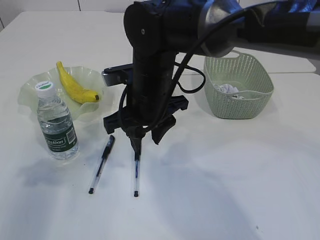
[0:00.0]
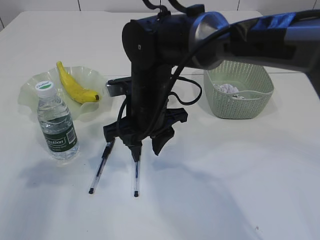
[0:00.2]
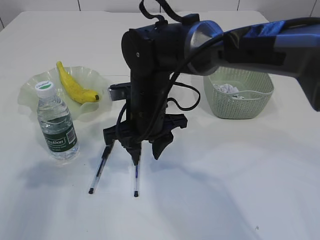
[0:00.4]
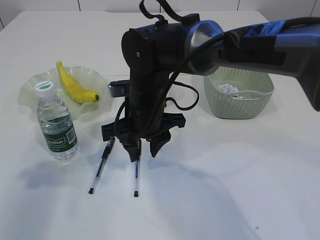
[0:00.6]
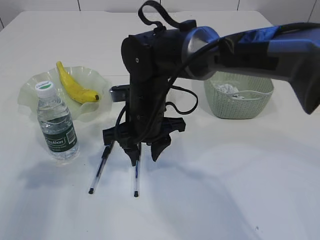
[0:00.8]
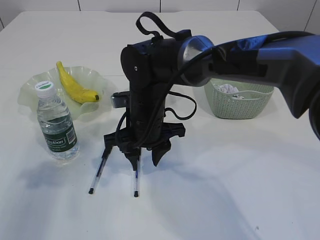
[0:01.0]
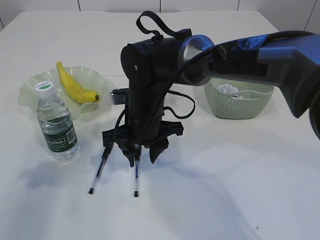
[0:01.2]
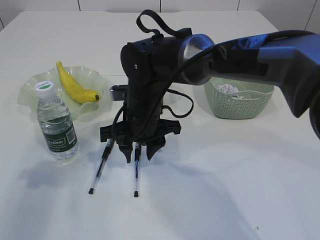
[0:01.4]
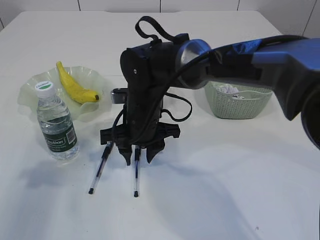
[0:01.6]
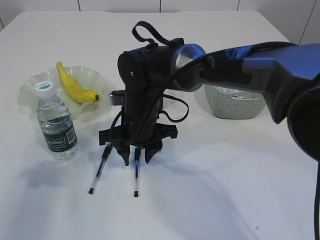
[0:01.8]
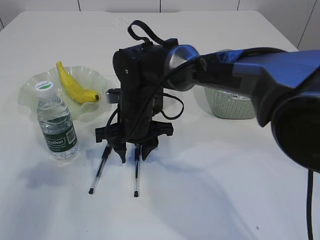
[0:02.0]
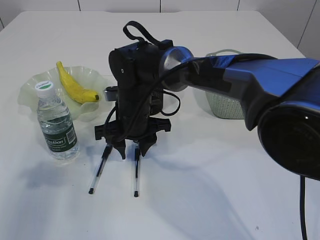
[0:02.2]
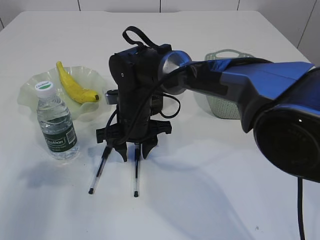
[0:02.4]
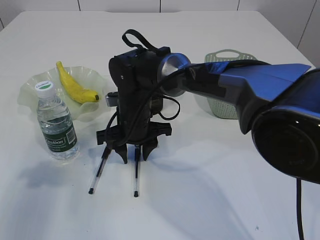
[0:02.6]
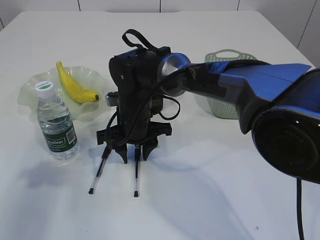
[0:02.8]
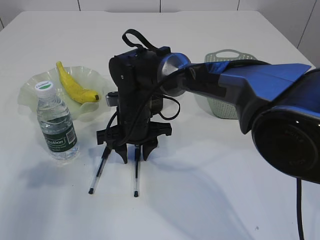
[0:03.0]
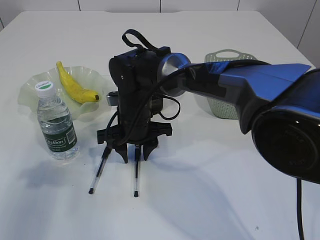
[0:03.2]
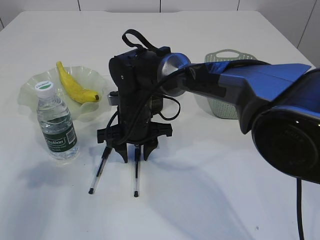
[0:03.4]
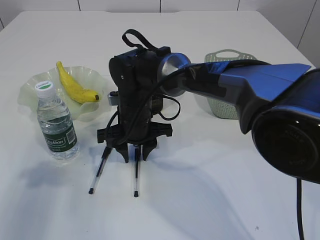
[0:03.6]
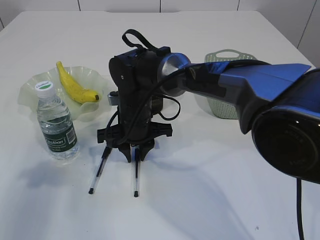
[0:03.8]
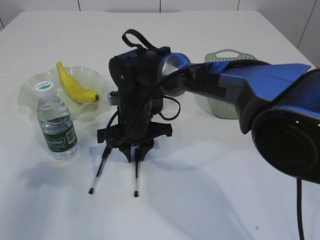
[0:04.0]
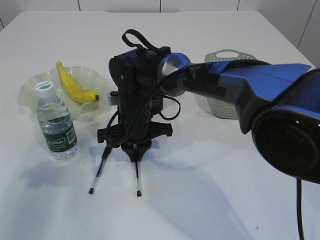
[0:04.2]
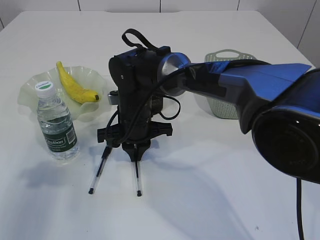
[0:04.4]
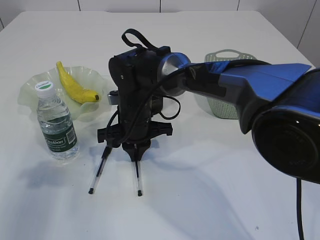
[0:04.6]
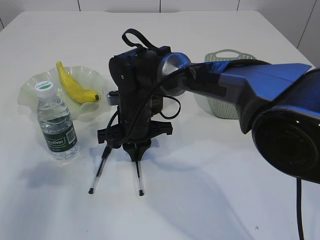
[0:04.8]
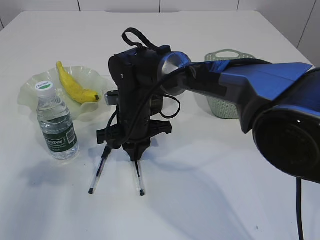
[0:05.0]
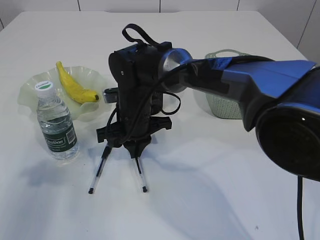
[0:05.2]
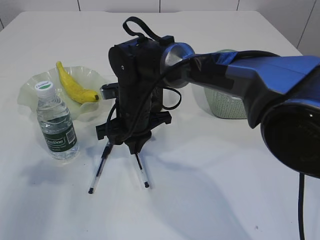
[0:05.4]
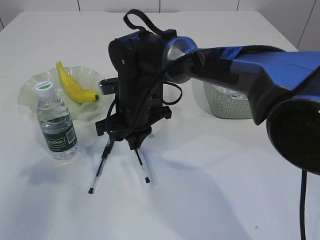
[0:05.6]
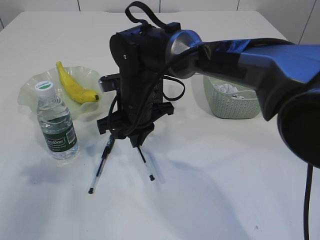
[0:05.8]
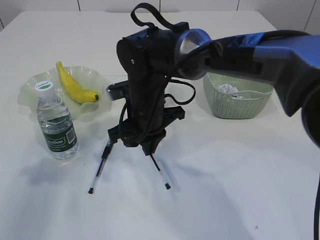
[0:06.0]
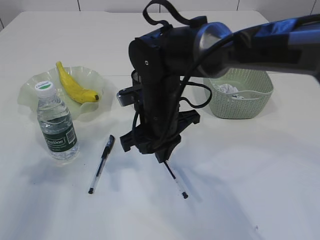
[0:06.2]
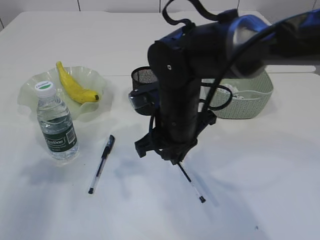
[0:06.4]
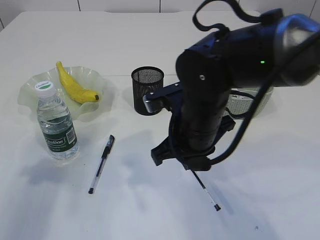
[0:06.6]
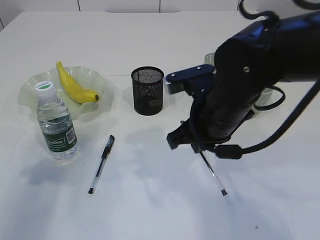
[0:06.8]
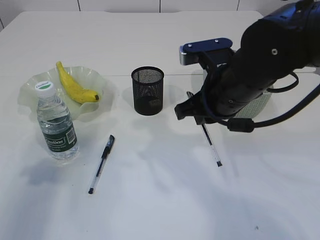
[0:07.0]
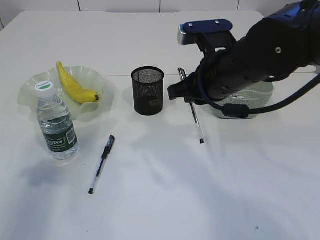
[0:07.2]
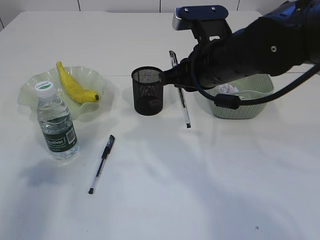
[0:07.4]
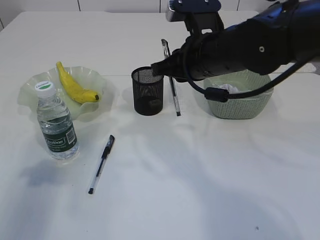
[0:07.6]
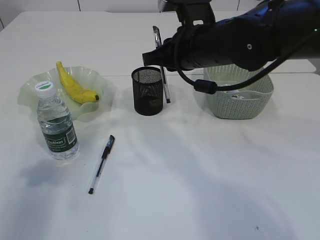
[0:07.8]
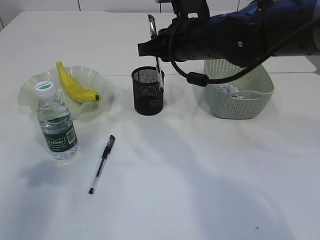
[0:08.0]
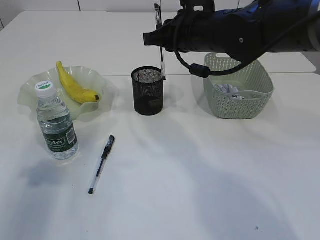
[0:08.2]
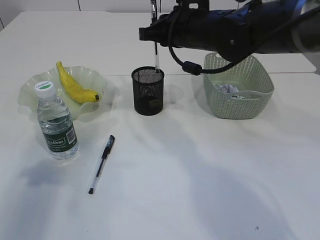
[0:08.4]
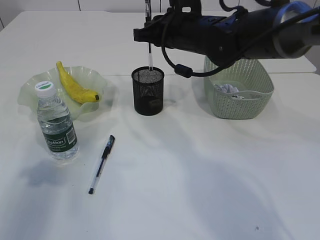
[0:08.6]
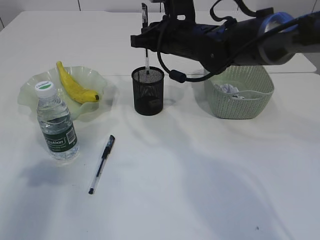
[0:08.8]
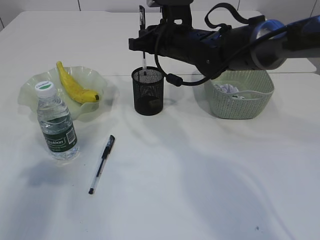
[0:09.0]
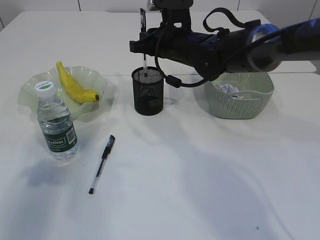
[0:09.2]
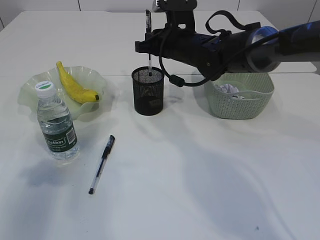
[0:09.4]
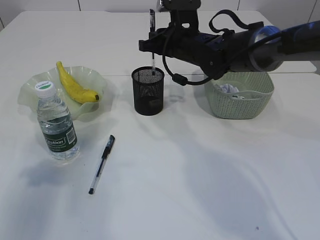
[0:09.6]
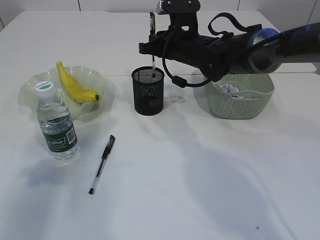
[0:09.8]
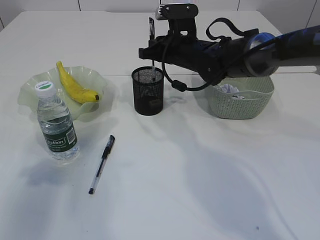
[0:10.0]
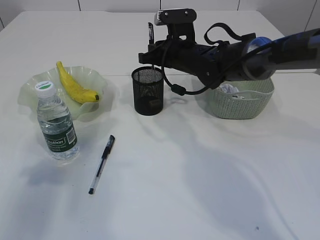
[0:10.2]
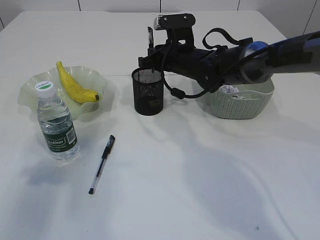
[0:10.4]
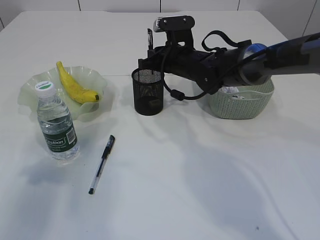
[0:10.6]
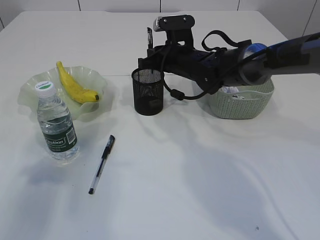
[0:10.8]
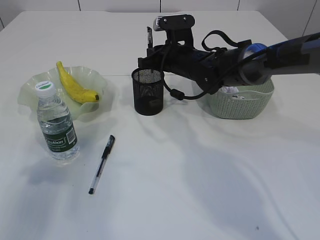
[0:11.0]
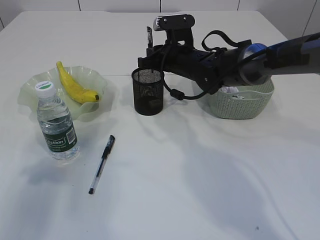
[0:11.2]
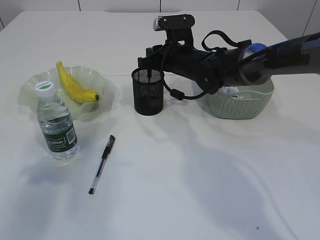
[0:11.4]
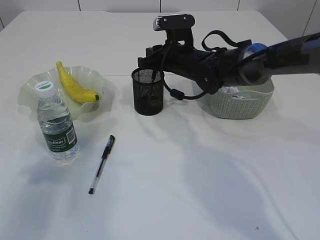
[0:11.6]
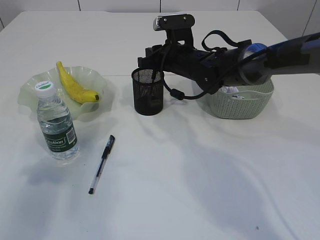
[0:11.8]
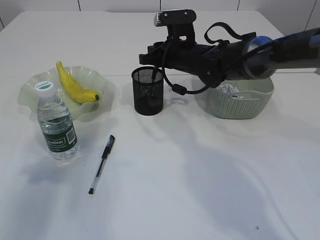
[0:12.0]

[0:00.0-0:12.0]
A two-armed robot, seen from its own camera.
Step, 0:00.0 to 0:06.0: Pick up the pen with right arm.
0:00.0 to 0:01.6: The right gripper goes some 5 cm downward.
0:03.0 to 0:04.4: The right gripper closes up.
0:06.0 to 0:07.6: The right gripper shifts approximately 15 cm to the right and upward.
0:07.6 to 0:09.0: The right gripper goes about 10 cm forward.
0:09.0 to 0:10.4: The right gripper changes place by approximately 5 cm.
0:10.4 to 0:12.0: Both grippers stay about where they are.

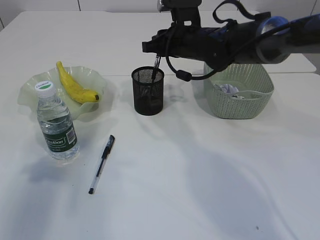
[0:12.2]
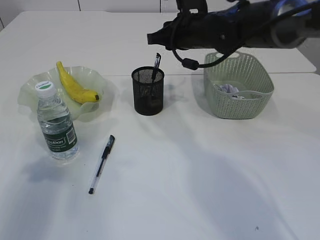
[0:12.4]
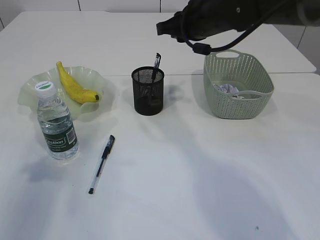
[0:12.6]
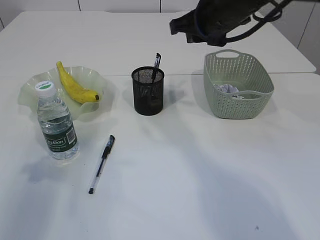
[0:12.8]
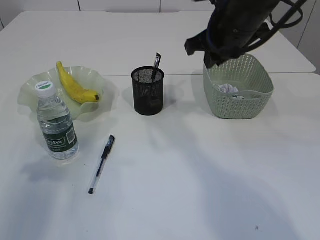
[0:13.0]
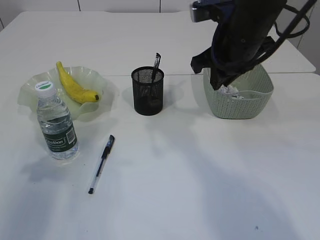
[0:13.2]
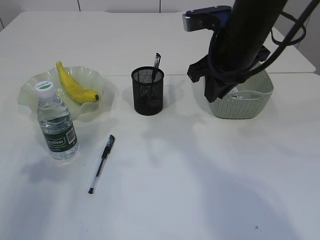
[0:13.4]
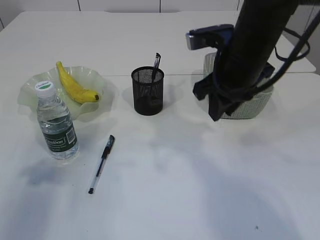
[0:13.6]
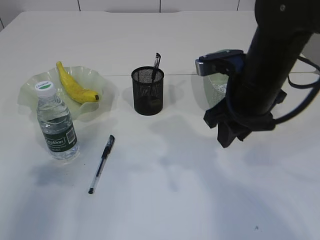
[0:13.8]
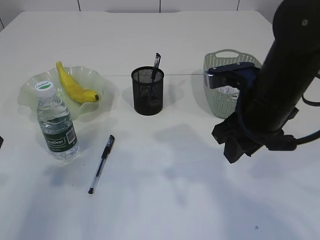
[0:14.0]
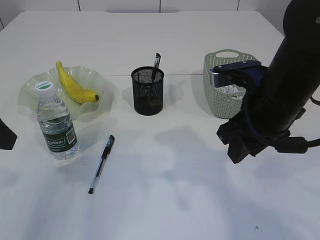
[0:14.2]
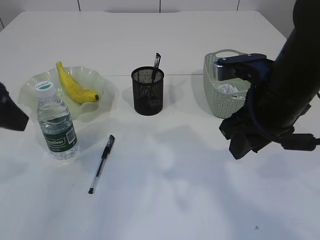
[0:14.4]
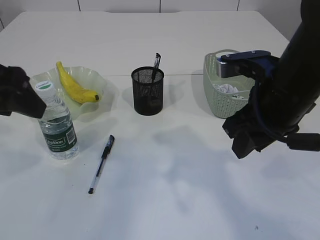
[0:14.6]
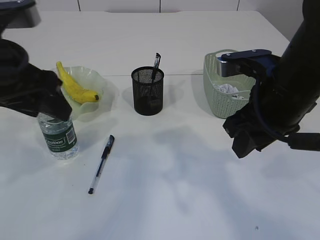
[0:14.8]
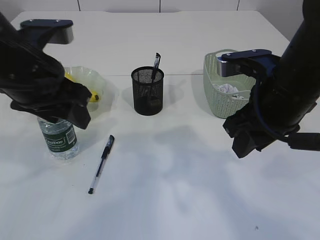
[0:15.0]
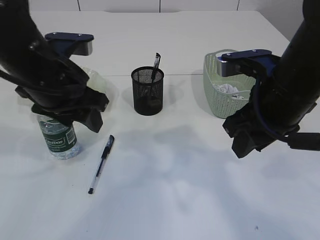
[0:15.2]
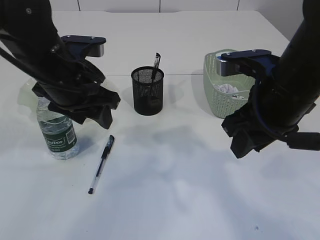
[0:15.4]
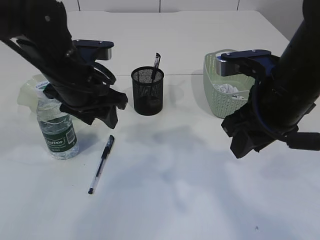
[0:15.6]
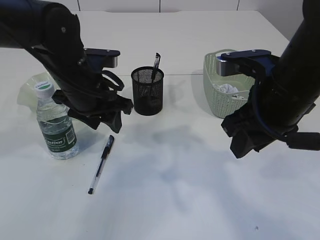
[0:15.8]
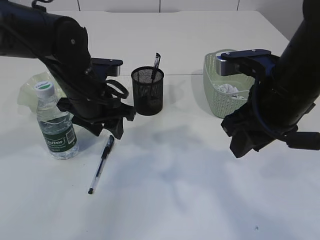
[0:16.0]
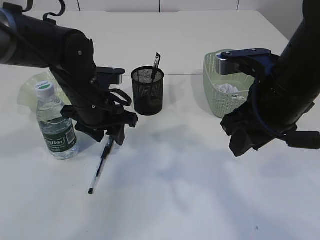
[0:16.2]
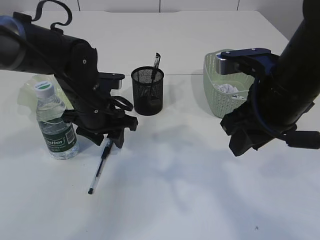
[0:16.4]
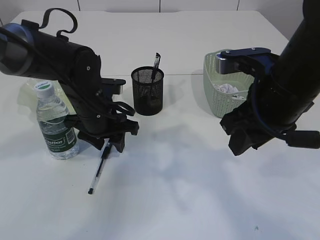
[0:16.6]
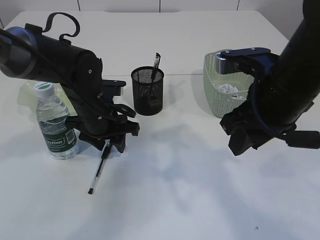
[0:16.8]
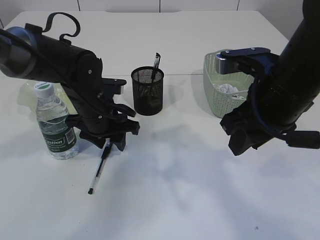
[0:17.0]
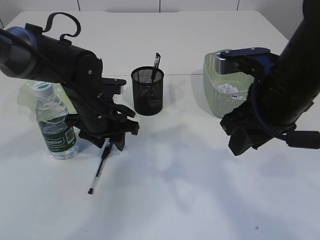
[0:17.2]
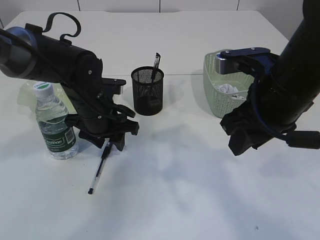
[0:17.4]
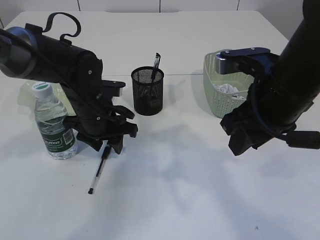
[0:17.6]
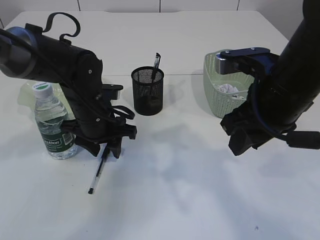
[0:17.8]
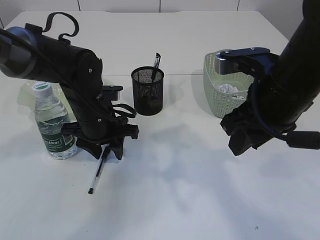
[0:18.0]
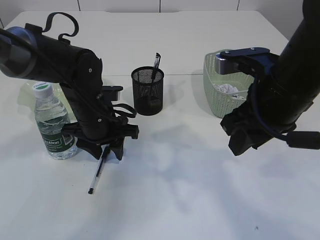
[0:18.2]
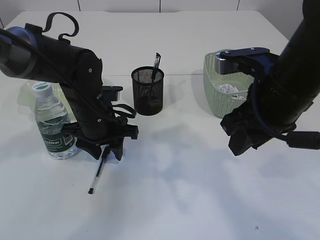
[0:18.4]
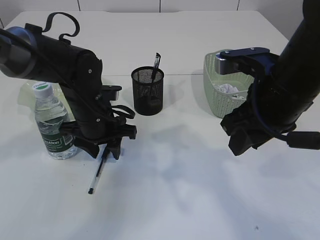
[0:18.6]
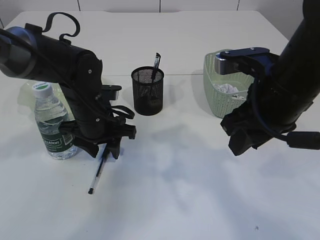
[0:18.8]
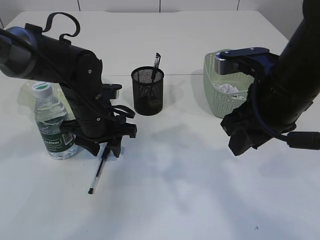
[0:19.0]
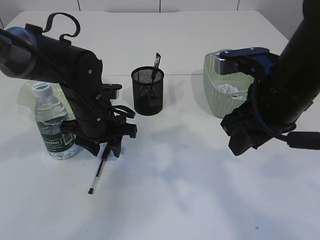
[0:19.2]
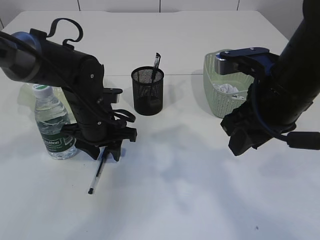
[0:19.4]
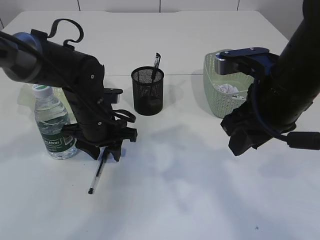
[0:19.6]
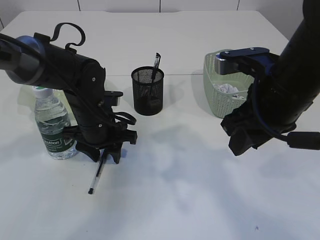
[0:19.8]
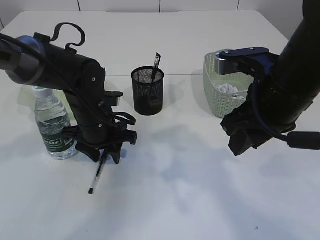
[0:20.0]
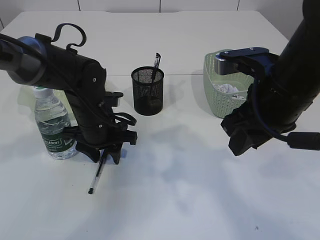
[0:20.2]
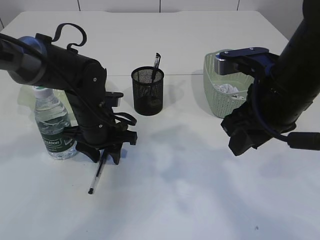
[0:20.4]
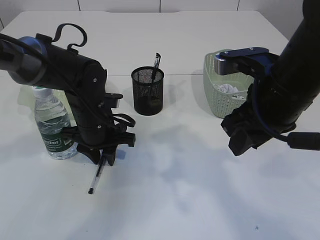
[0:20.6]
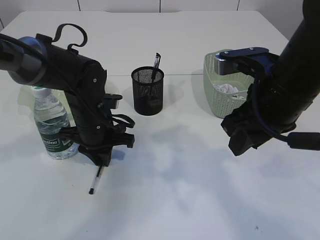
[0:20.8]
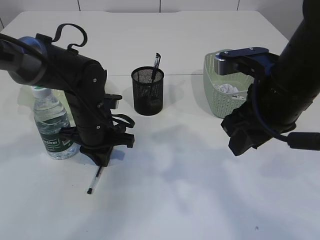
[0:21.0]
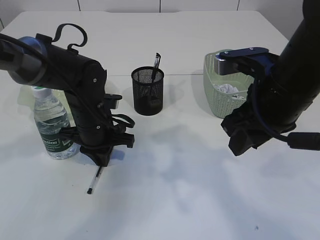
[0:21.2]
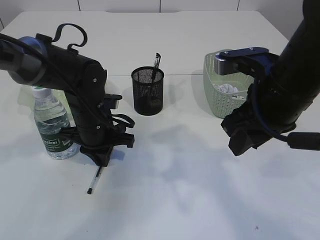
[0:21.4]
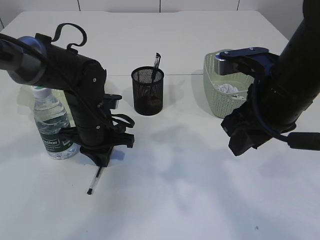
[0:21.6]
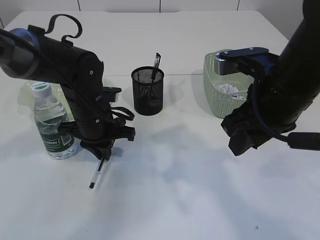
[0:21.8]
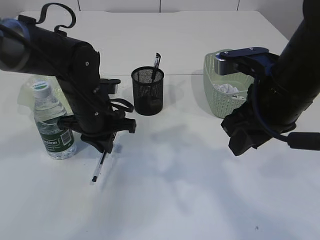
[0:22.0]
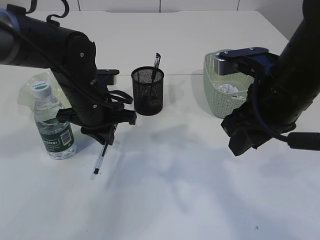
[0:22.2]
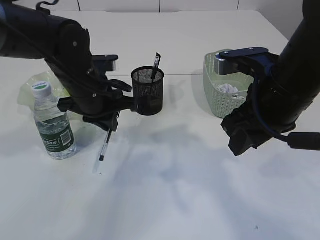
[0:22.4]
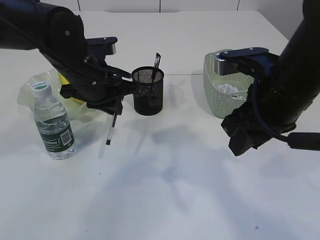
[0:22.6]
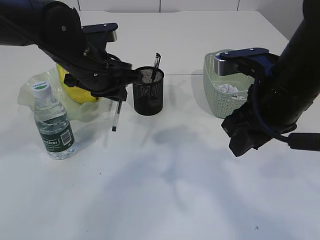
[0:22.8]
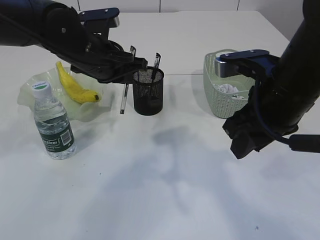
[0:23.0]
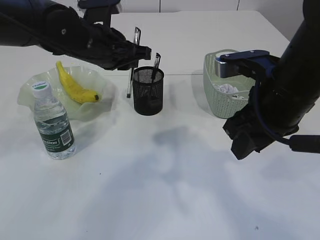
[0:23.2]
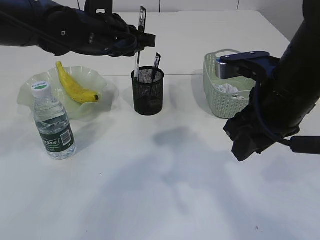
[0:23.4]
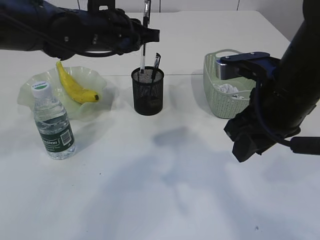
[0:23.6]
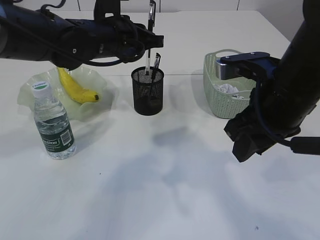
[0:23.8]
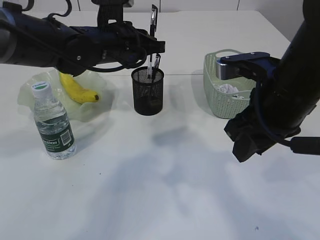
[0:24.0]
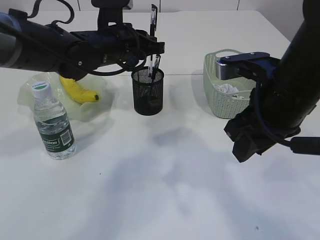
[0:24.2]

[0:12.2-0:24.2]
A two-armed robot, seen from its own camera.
Step, 0:12.4 to 0:22.2: Pick up the pen with left arm.
0:12.2 to 0:13.8: The right gripper is displaced backward by roughly 15 cm.
0:13.8 to 0:15.2: The right gripper shifts by about 5 cm. Meanwhile the left gripper shifts about 15 cm to the right and forward.
0:15.2 to 0:16.6: The left gripper travels downward and forward by approximately 15 cm.
0:16.6 to 0:19.8: The grippers move only a little.
0:19.8 to 0:21.2: The left gripper closes its fingers.
0:21.2 to 0:22.6: The left gripper moves upward, some 10 cm.
0:22.6 to 0:24.2: The left gripper shifts some 5 cm forward.
